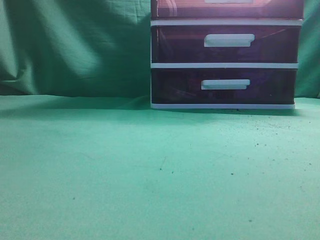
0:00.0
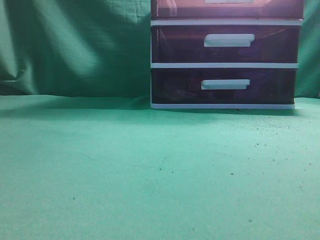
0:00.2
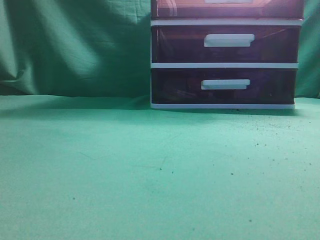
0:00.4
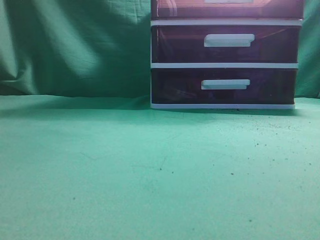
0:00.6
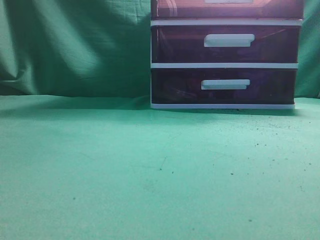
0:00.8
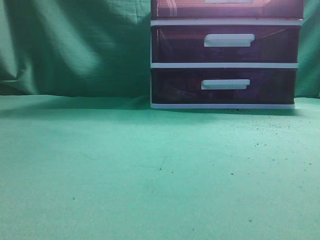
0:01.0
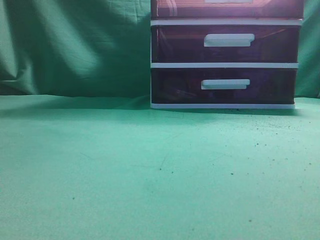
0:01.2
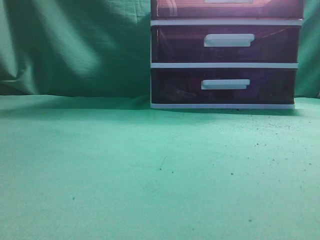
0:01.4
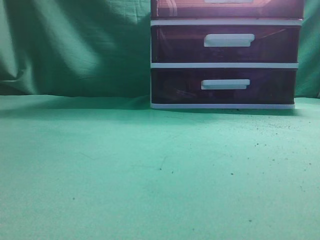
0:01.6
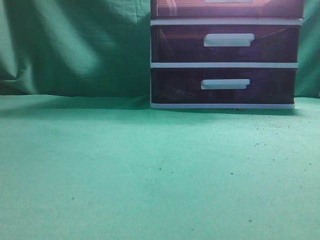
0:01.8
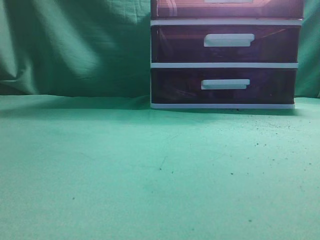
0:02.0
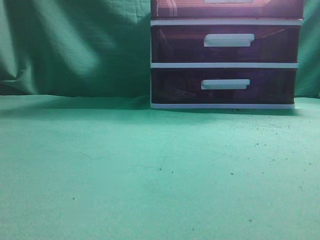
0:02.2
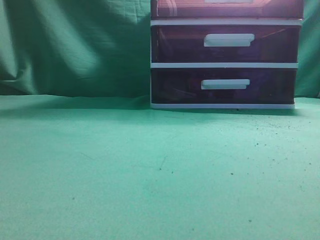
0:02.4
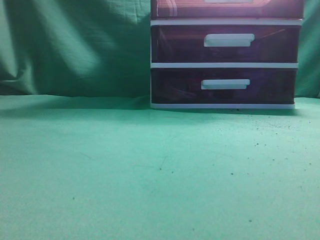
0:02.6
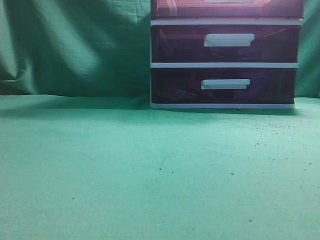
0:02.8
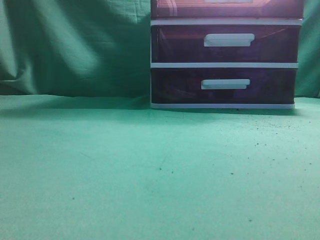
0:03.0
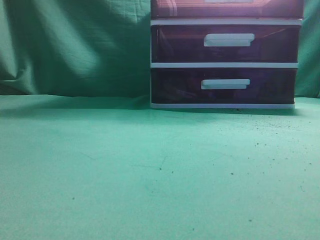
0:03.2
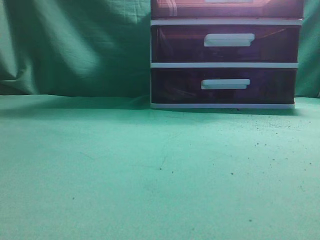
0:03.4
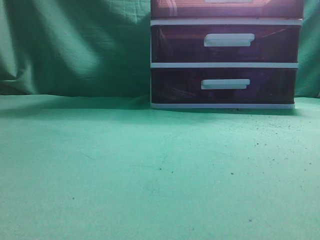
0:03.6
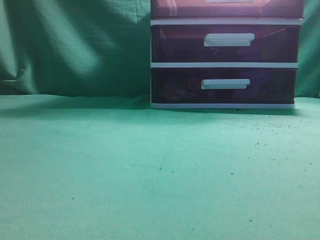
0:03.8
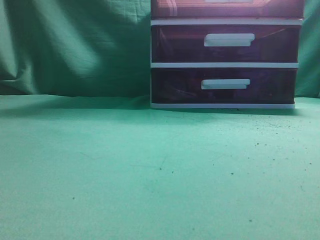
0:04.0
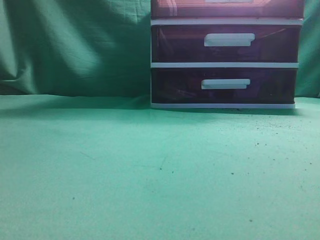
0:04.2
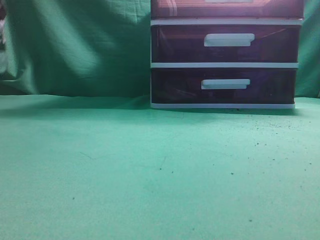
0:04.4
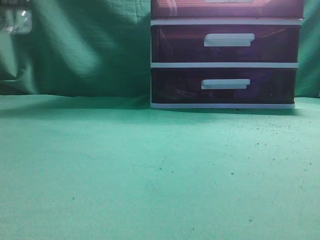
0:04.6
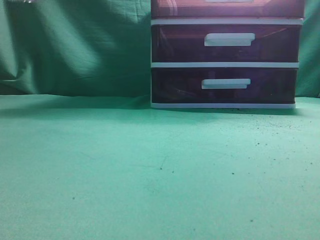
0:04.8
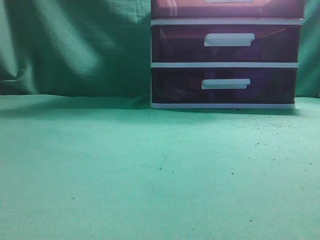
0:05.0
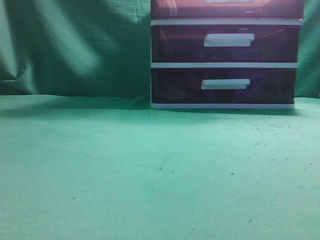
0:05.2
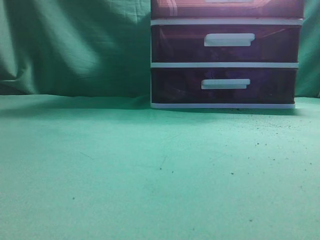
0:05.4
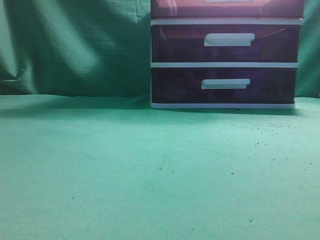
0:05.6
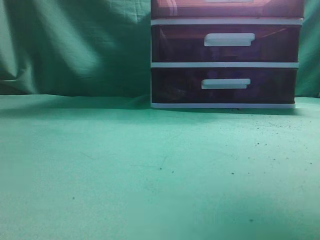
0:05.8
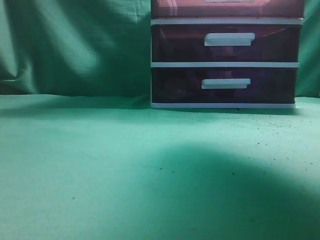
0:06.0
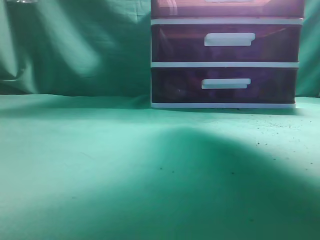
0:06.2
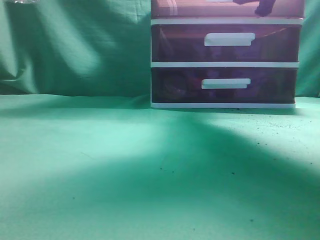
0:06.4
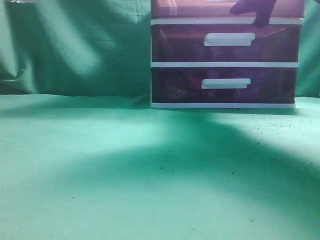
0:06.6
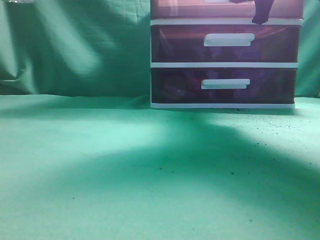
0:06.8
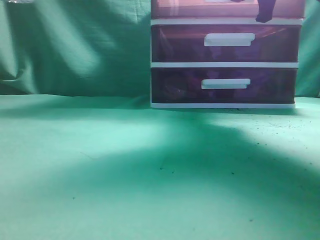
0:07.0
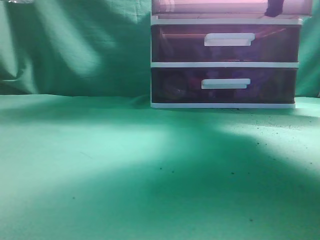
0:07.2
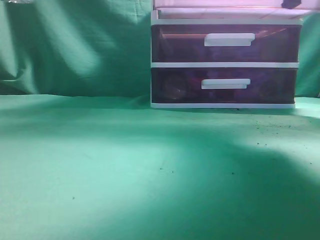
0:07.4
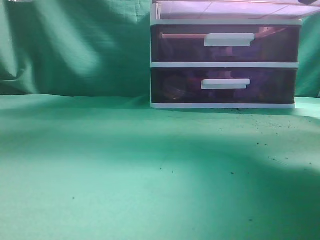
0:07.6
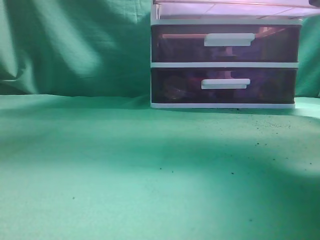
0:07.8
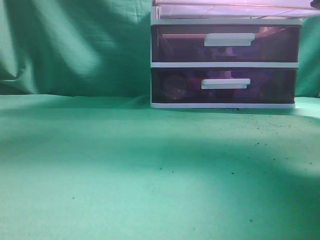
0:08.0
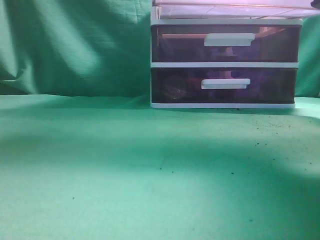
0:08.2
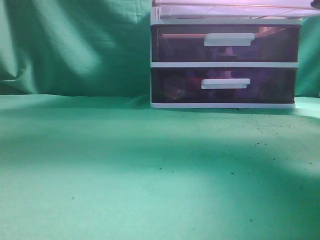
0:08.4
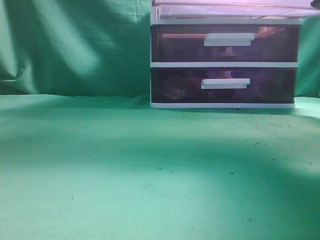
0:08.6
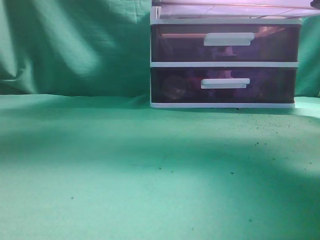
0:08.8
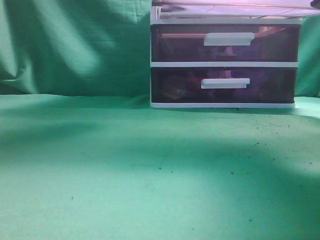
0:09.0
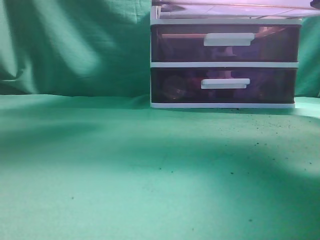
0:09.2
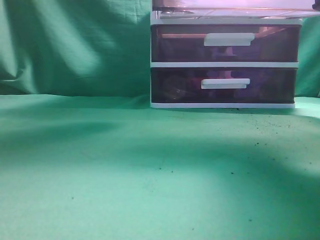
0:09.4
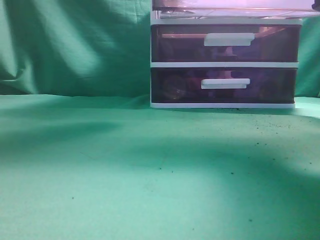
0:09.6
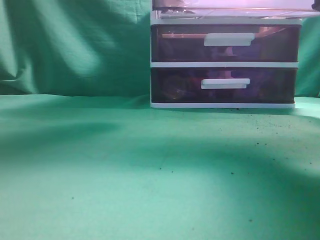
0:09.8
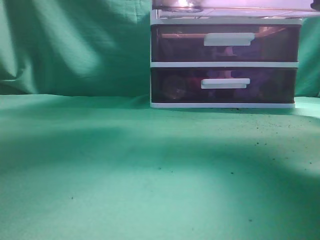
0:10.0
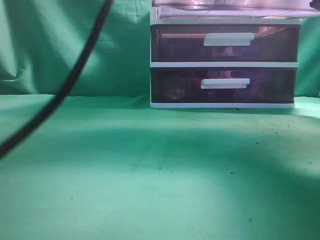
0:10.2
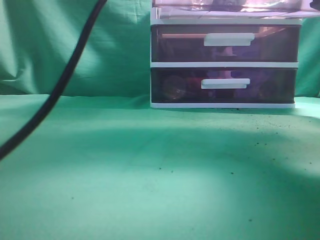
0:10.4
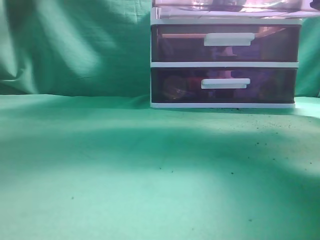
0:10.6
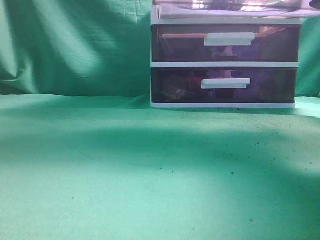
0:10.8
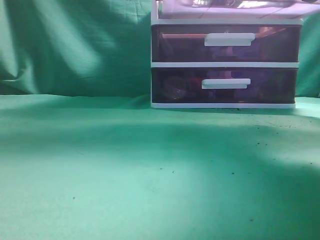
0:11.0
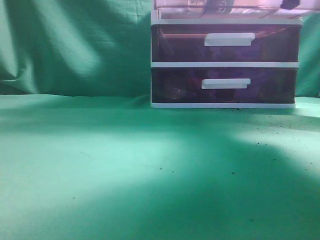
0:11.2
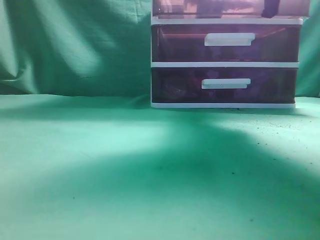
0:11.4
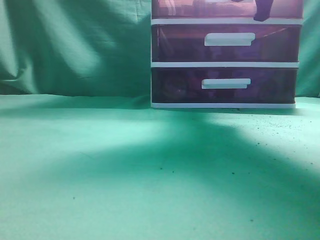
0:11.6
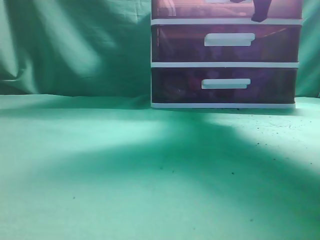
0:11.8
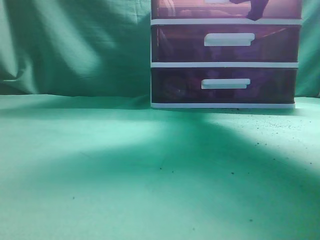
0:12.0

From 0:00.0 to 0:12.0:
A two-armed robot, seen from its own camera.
Task of the whole recording: place the water bottle into the drawer.
Step, from 0:00.0 to 0:08.0: Open the drawer.
Step, from 0:08.2 to 0:10.8: Place the water bottle inside the drawer.
From 0:04.4 to 0:06.0: The left gripper travels upward, backward and to the right by some 15 cm; the right gripper travels forward and upward by about 30 cm, and opens.
From 0:06.0 to 0:07.6: The right gripper travels forward and back again, approximately 10 cm each way, and closes up.
From 0:07.6 to 0:09.0: The left gripper shifts approximately 25 cm to the right and forward.
From 0:09.0 to 0:10.4: The left gripper heads to the right, covering some 10 cm, and opens.
From 0:10.4 to 0:12.0: The right gripper is displaced forward by about 15 cm; the left gripper moves to the left and backward, some 30 cm, and closes.

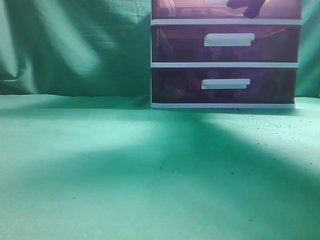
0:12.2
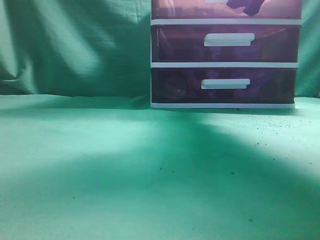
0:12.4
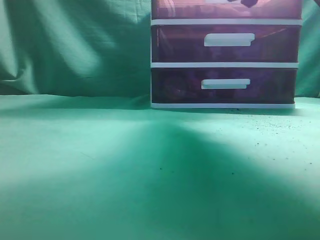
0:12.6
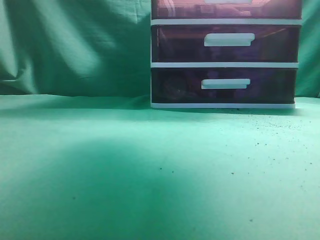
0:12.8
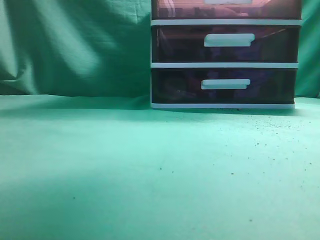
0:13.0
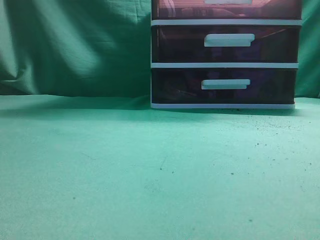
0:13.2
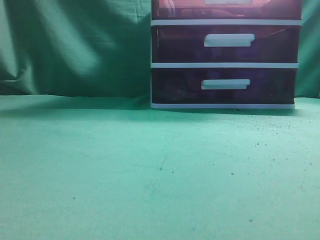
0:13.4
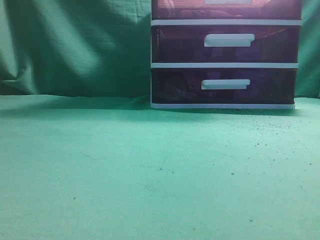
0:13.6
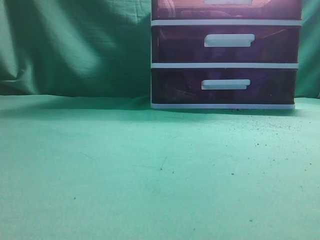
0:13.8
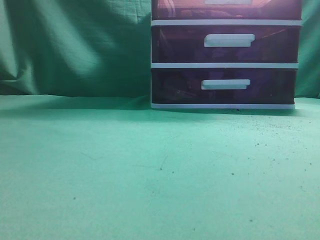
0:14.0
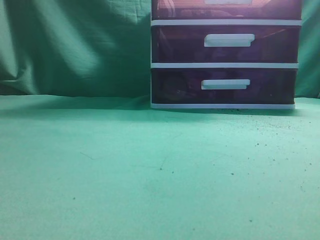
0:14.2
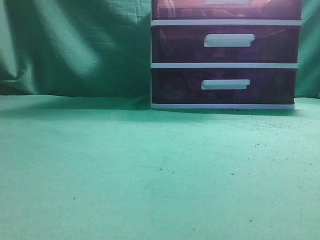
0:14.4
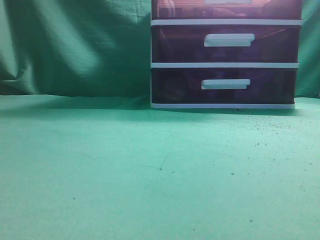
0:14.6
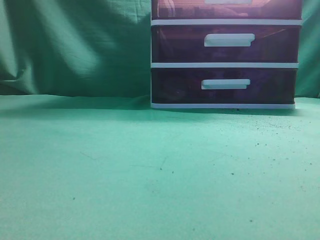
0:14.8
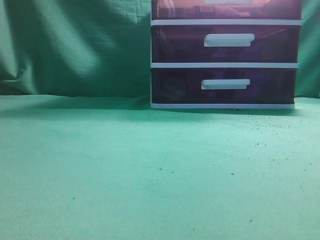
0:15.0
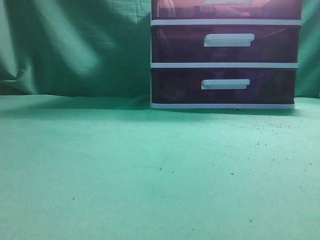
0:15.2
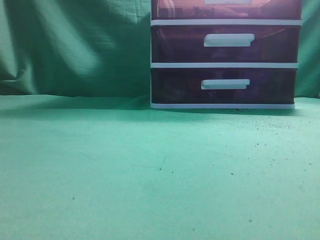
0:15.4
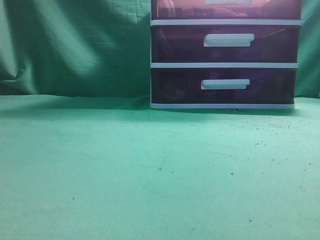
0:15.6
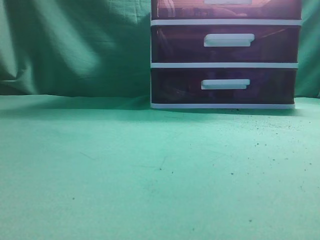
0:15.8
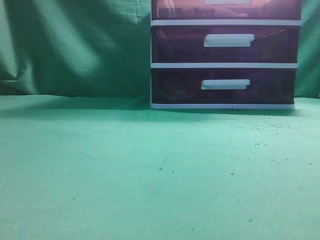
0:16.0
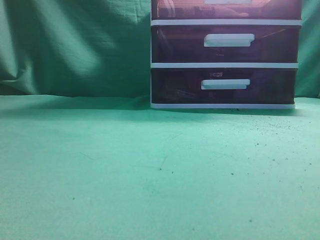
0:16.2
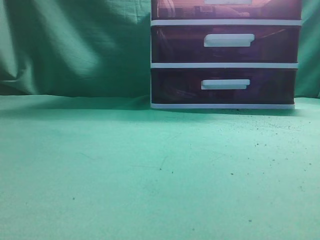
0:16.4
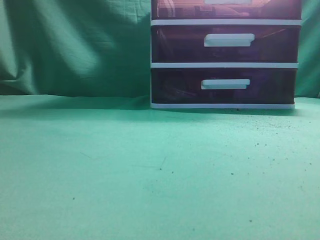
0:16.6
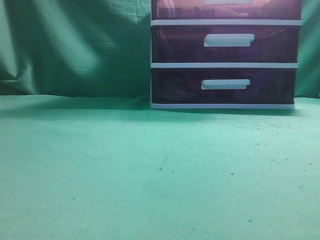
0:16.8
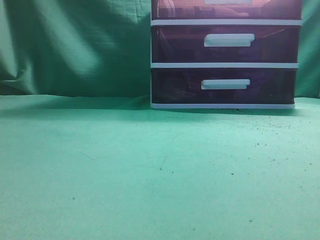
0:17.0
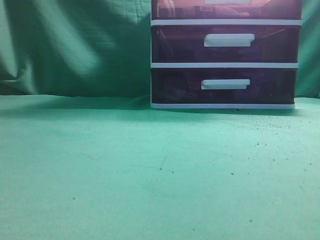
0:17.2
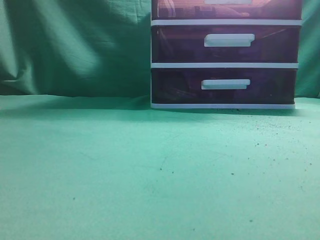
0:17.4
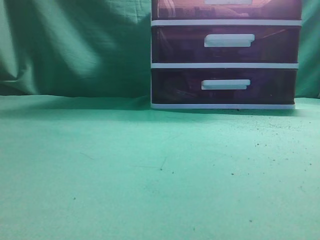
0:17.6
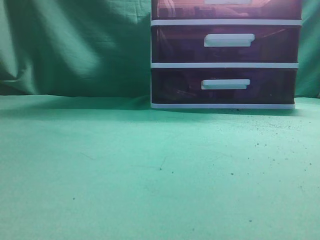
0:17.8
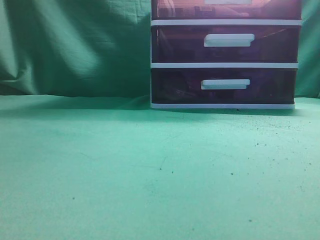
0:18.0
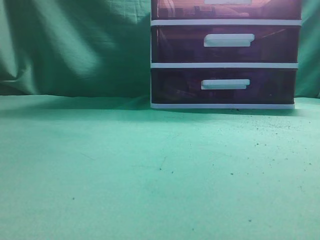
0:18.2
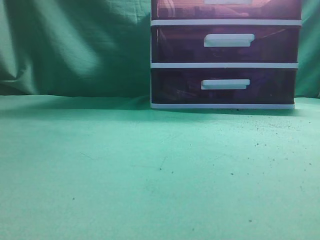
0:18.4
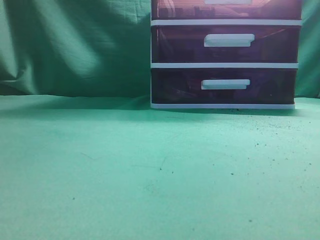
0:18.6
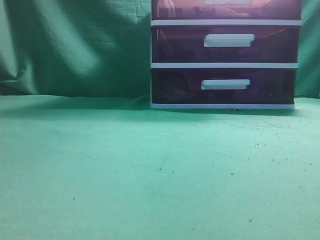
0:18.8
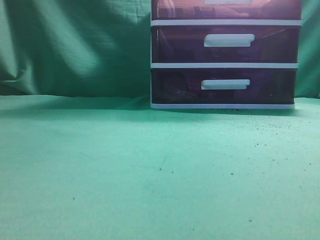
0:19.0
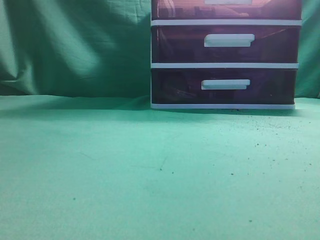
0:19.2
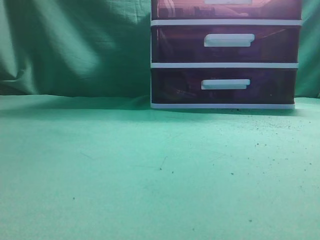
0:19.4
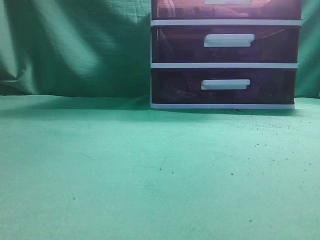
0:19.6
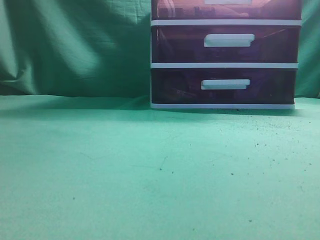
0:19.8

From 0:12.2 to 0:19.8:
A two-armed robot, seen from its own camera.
Task of the whole recording: place the water bottle into the drawer.
From 0:12.2 to 0:13.8: The right gripper is displaced backward by approximately 35 cm, and closes up. Meanwhile the left gripper travels backward, downward and to the left by roughly 25 cm.
